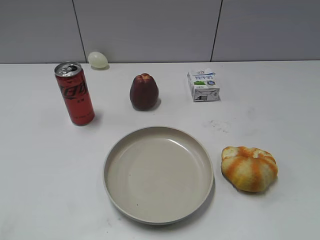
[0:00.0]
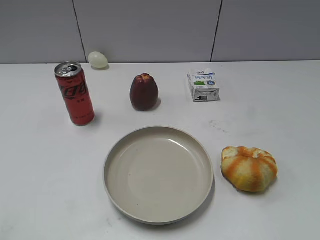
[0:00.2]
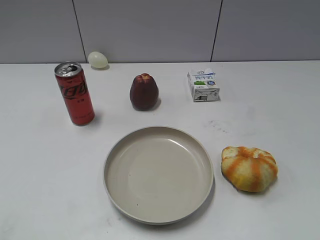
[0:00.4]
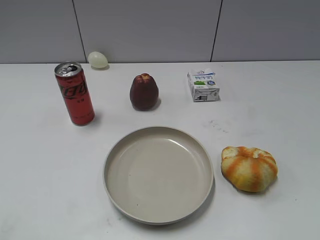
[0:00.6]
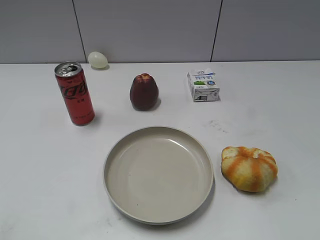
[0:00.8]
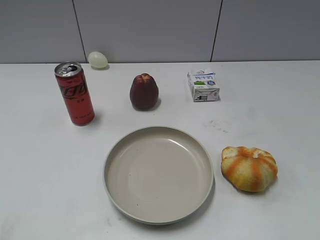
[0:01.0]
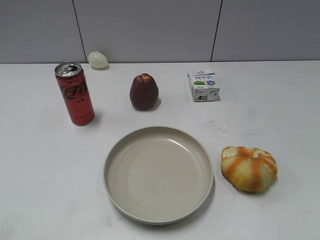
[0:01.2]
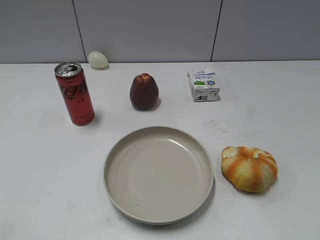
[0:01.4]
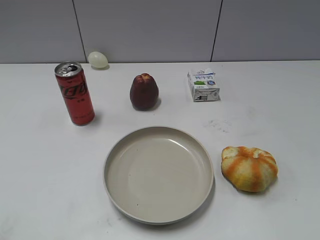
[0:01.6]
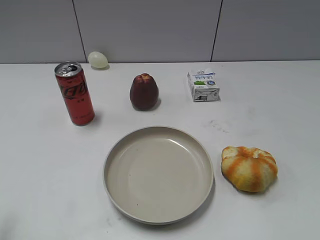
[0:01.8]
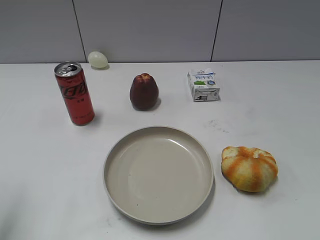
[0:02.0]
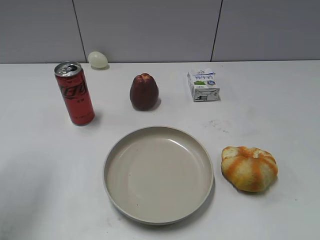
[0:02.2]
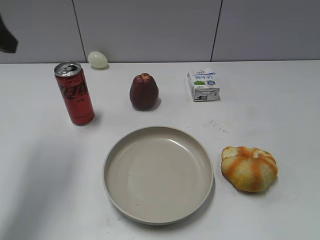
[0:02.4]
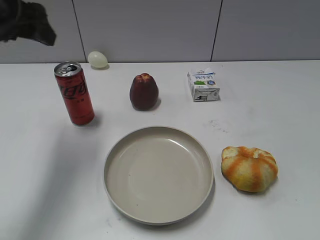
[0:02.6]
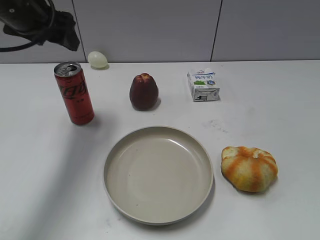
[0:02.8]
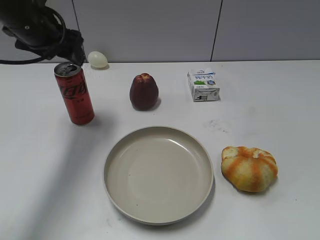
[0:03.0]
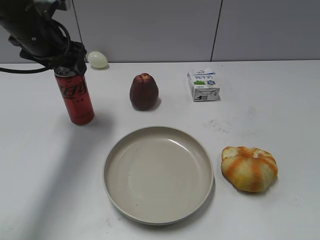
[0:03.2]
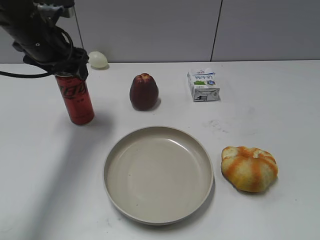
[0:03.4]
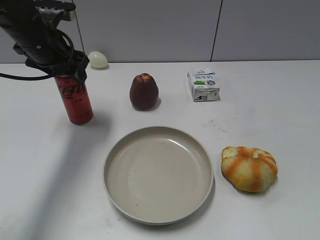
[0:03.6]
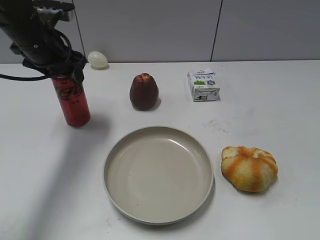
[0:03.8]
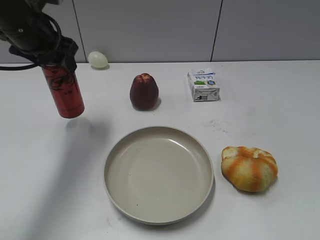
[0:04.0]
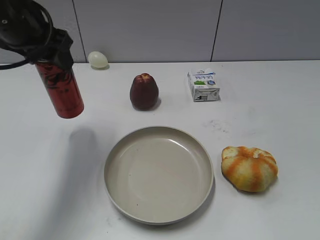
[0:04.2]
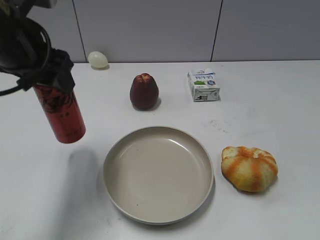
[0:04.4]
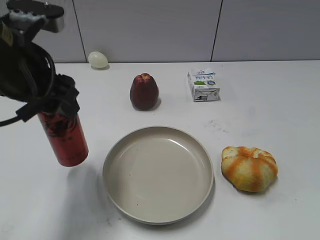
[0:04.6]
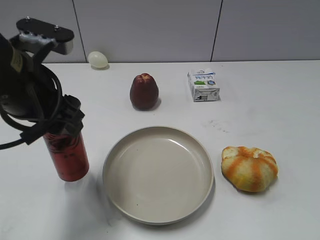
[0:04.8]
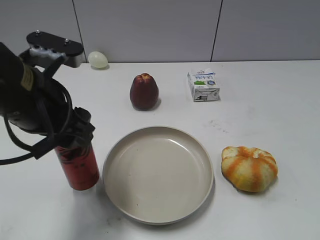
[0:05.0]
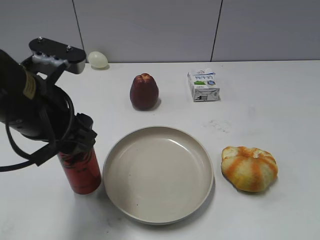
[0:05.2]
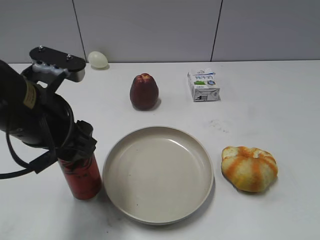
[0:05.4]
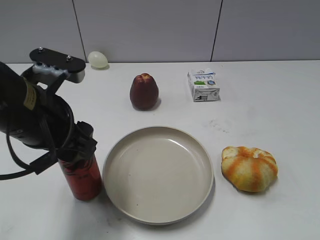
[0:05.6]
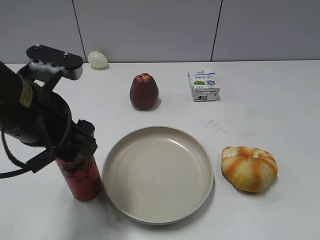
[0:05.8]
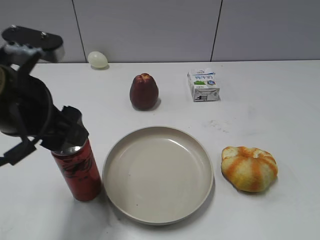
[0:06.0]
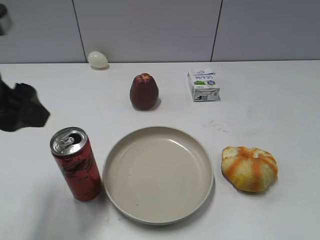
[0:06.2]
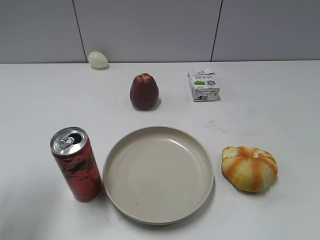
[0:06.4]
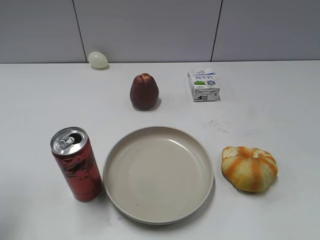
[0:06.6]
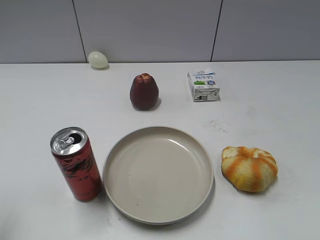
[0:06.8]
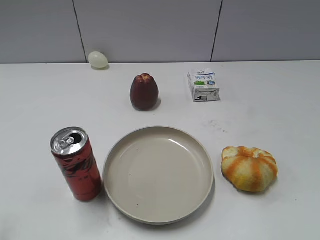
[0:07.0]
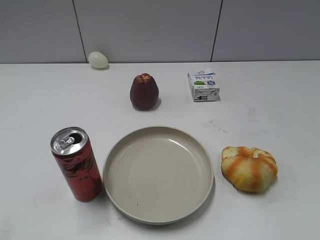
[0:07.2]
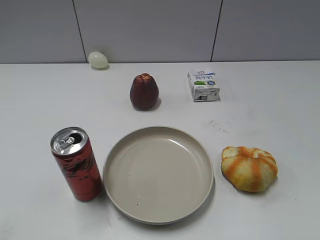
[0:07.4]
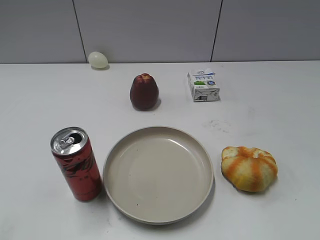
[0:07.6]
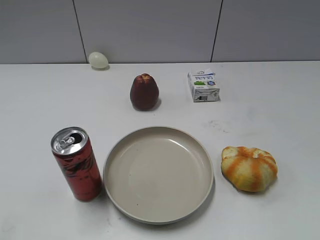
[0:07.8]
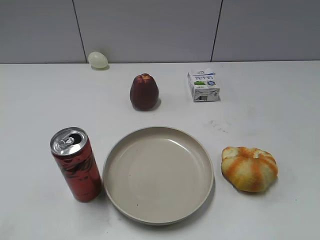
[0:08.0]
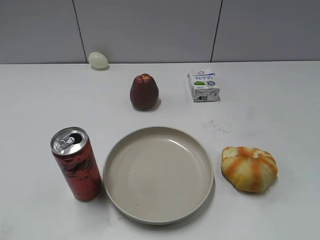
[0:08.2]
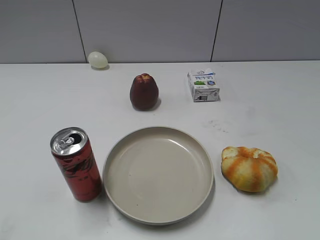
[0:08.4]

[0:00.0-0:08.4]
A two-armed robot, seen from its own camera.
Step, 0:01.4 to 0:03.6: Grasp the cola with left gripper.
Step, 0:04.0 to 0:06.0: Place the cola on the table with left gripper.
0:01.4 to 0:02.8: The left gripper goes roughly 35 cm forward, and opens its fingers.
0:02.8 to 0:04.2: The left gripper is displaced backward by about 5 cm, and closes up.
0:04.2 to 0:05.6: The left gripper shifts some 10 cm backward and downward.
0:05.6 to 0:07.0: The left gripper goes about 20 cm to the left, backward and upward, and opens and closes again.
